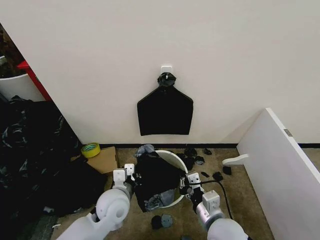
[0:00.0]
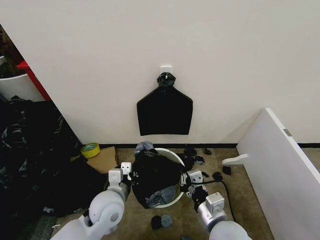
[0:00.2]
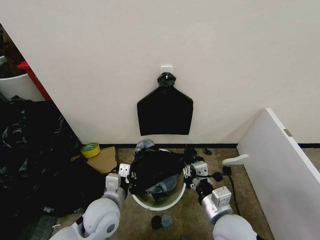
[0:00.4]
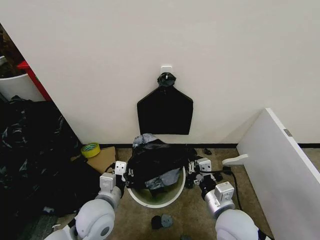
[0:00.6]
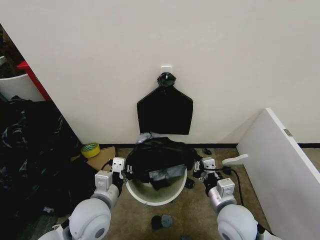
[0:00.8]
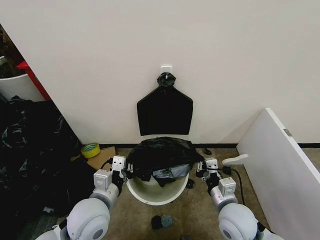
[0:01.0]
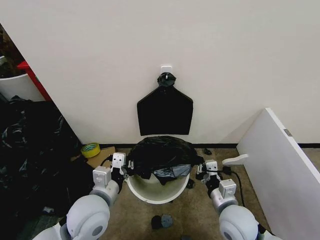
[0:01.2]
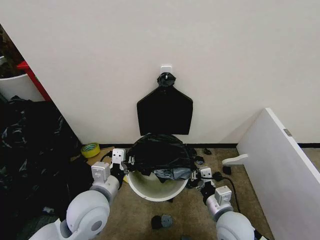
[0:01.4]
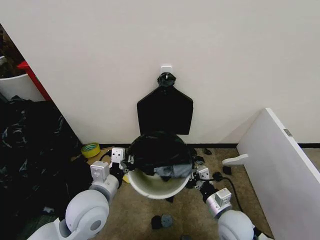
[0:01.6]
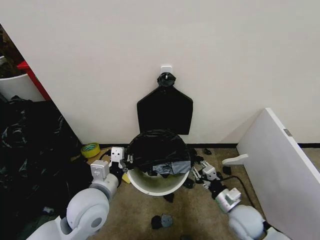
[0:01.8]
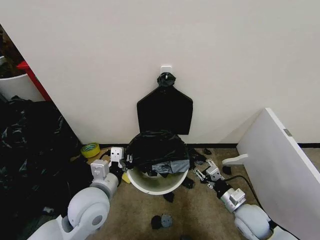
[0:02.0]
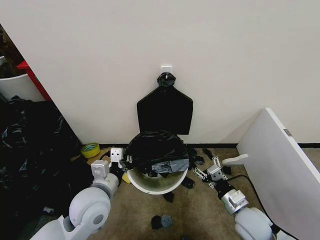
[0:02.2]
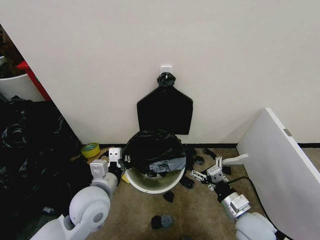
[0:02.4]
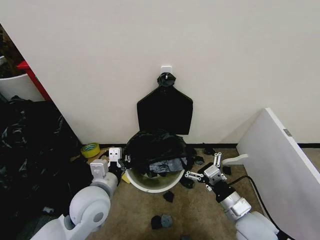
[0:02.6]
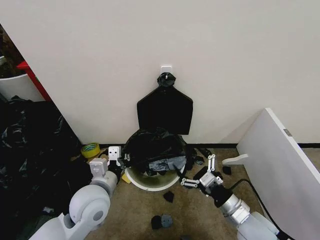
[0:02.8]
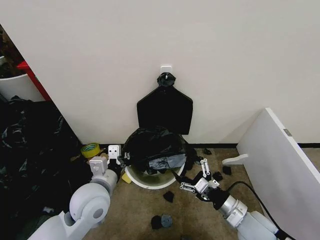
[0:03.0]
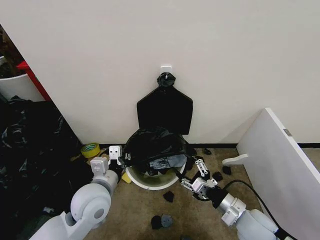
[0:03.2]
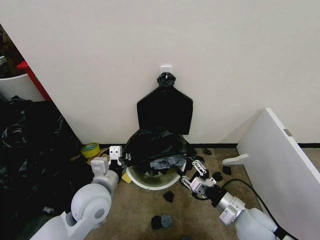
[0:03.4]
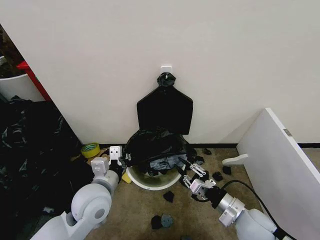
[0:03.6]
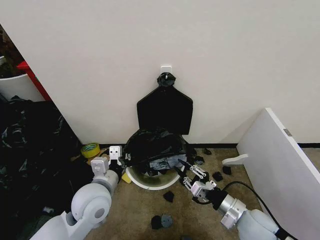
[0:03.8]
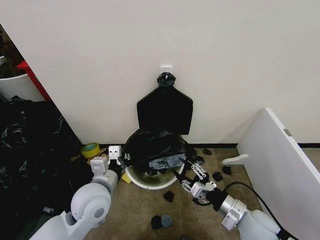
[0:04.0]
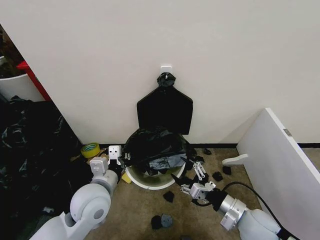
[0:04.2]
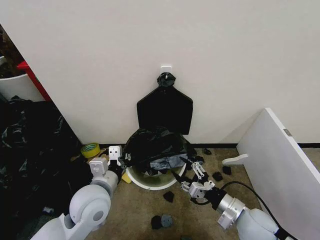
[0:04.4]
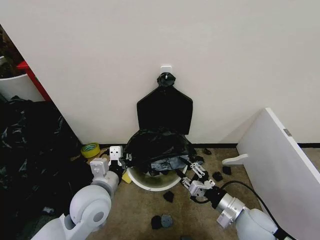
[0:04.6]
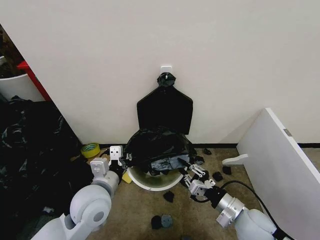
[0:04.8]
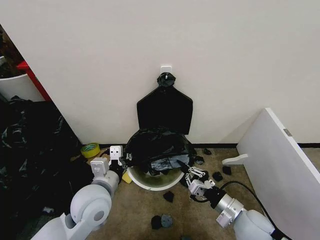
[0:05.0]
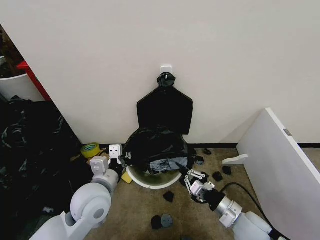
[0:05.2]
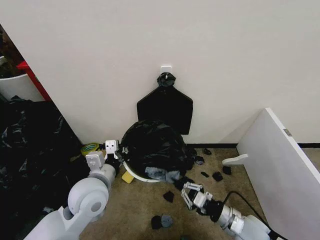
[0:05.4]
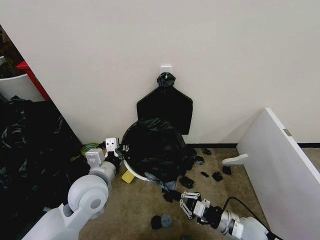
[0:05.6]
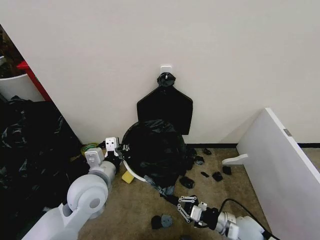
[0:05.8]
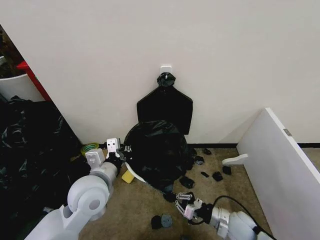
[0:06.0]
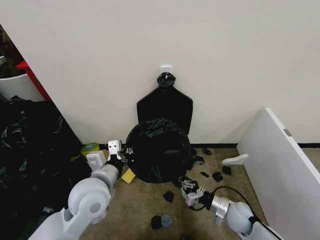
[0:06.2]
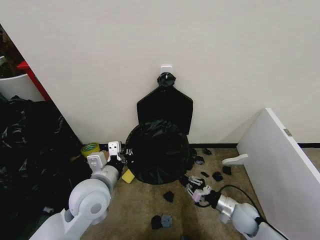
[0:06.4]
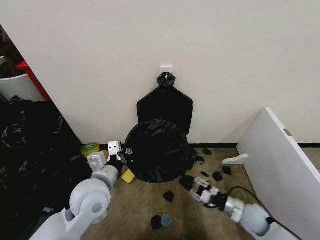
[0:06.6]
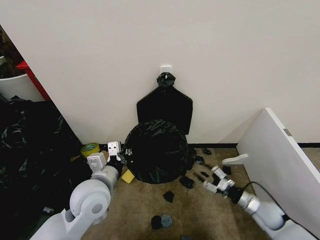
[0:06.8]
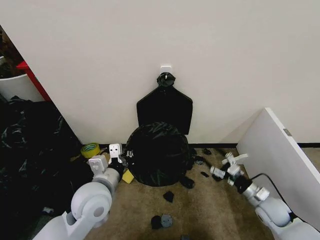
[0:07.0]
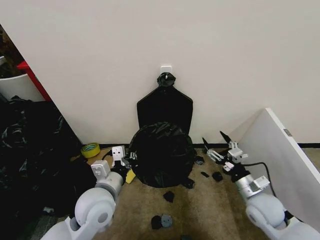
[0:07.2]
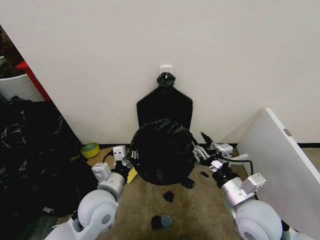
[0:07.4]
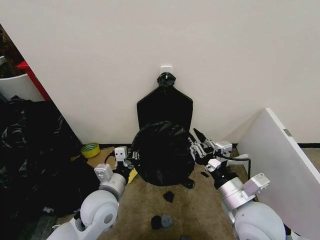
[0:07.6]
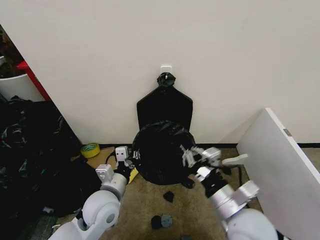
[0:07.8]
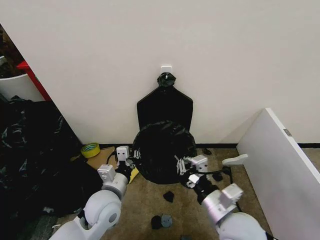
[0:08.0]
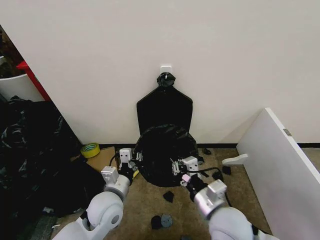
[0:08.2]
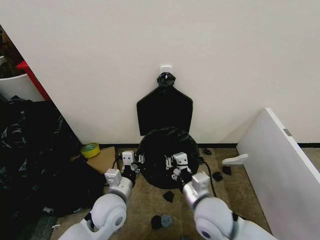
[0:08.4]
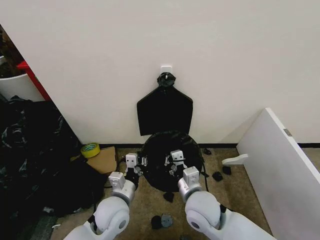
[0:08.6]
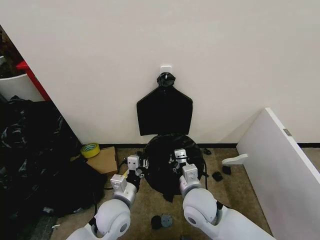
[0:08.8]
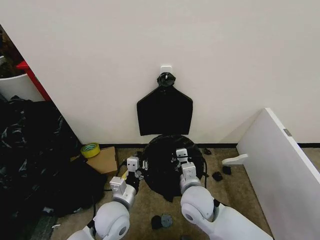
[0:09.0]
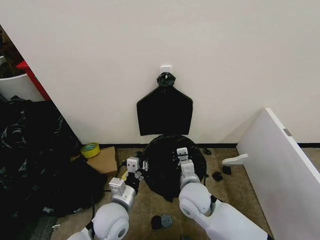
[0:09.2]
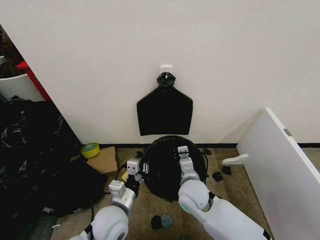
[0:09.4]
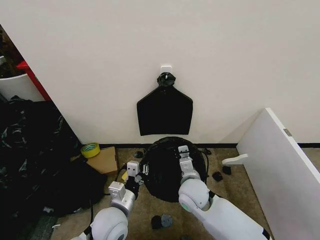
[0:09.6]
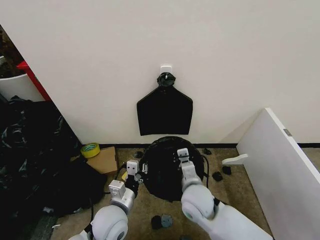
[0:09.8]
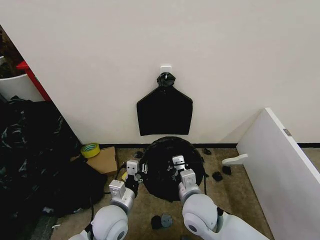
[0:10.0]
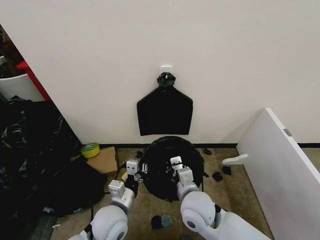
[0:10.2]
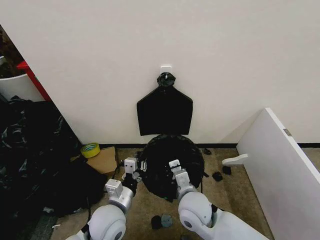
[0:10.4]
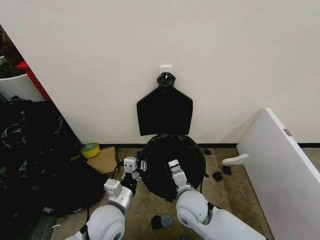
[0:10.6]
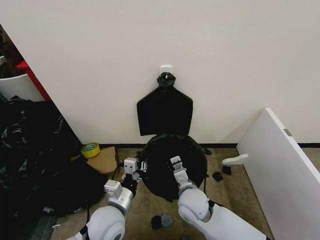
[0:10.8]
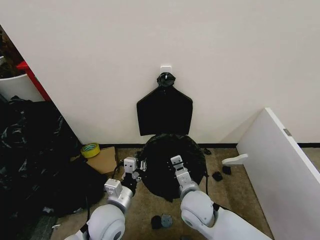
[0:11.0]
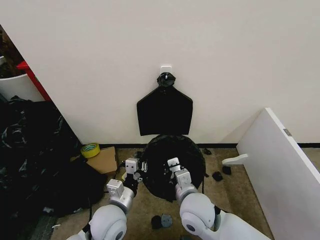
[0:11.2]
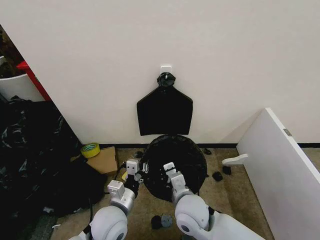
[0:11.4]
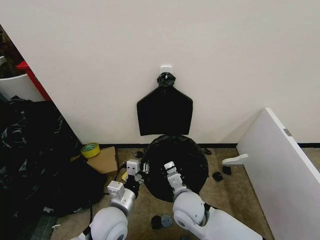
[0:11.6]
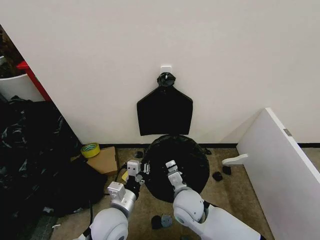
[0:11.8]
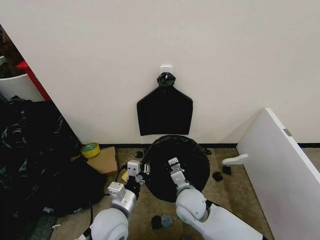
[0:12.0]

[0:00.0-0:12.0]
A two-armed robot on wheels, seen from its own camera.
Task of the whole recording: Place the garbage bag over the trash bin.
0:00.0 to 0:01.6: The right gripper changes place by about 10 cm. Meanwhile the left gripper shifts approximately 10 cm upward.
0:01.6 to 0:03.0: The right gripper goes roughly 5 cm to the right, and opens its fingers.
0:03.0 to 0:04.4: The grippers make only small movements.
0:04.4 to 0:06.0: The right gripper moves downward, approximately 15 cm, and closes its fingers.
0:06.0 to 0:07.6: The left gripper travels downward by some 5 cm, while the right gripper travels upward by approximately 20 cm, and opens and closes again.
0:07.6 to 0:09.0: The right gripper shifts about 15 cm to the left, downward and forward; the left gripper heads downward, covering roughly 5 cm.
0:09.0 to 0:12.0: There are only small adjustments of the grippers.

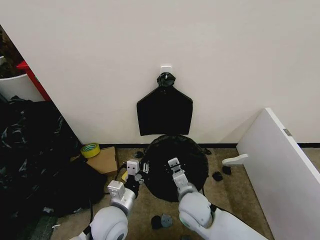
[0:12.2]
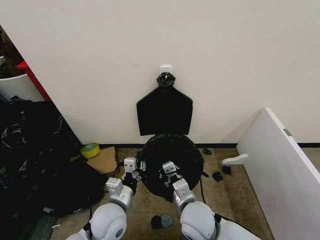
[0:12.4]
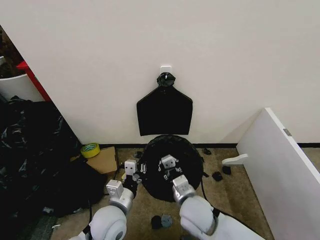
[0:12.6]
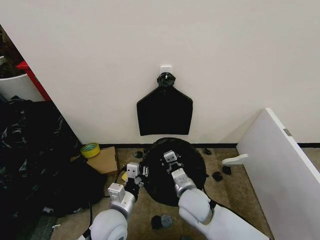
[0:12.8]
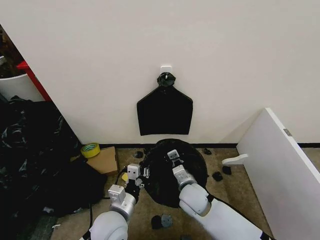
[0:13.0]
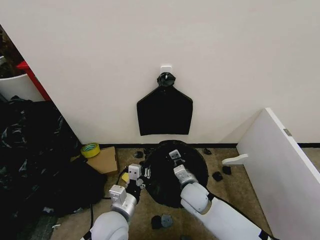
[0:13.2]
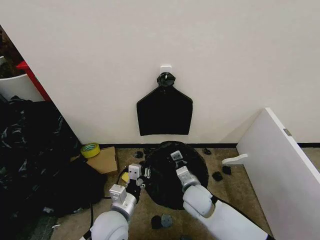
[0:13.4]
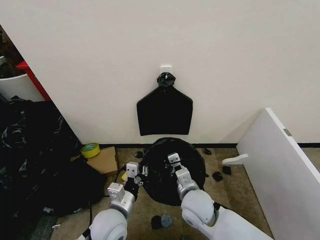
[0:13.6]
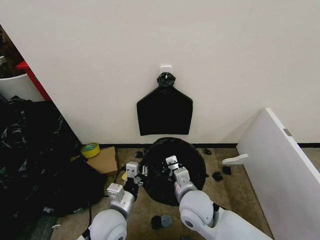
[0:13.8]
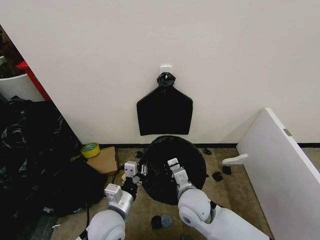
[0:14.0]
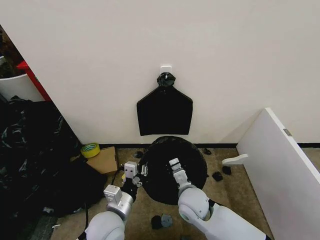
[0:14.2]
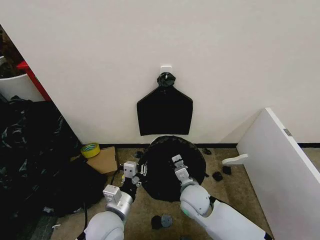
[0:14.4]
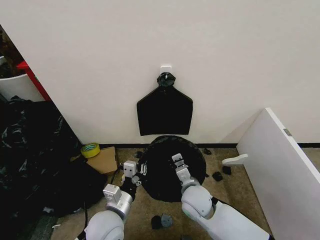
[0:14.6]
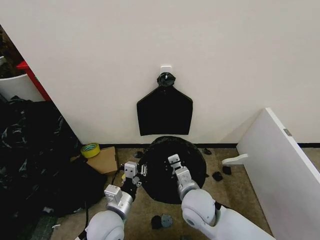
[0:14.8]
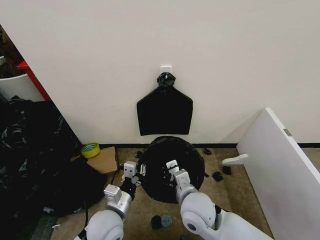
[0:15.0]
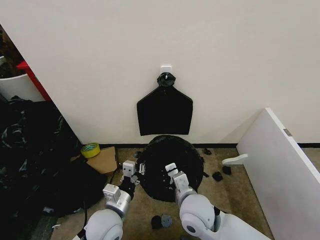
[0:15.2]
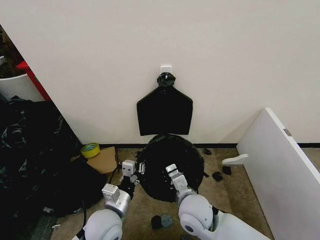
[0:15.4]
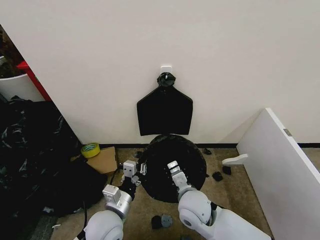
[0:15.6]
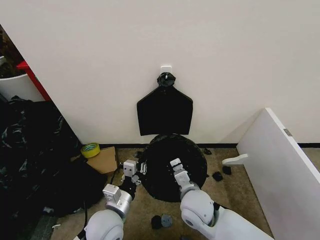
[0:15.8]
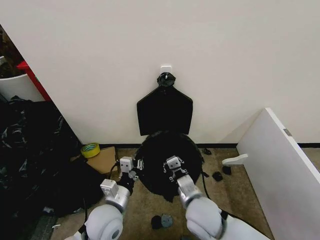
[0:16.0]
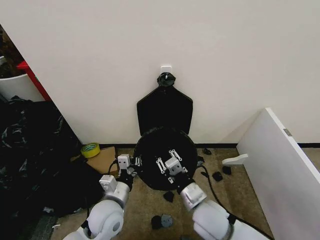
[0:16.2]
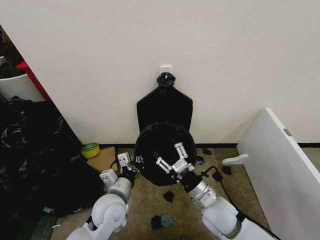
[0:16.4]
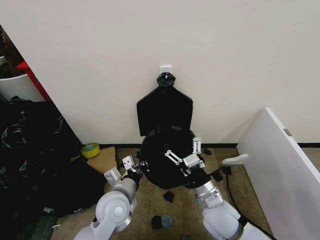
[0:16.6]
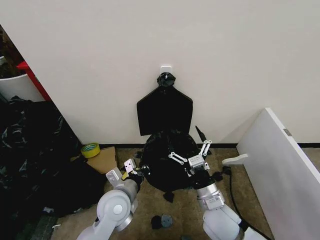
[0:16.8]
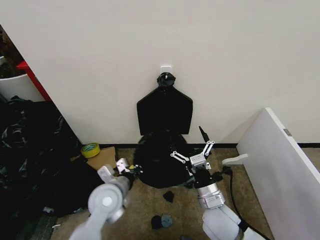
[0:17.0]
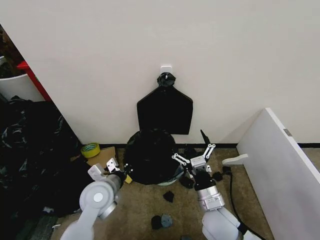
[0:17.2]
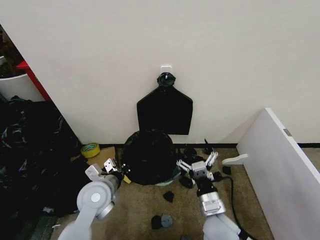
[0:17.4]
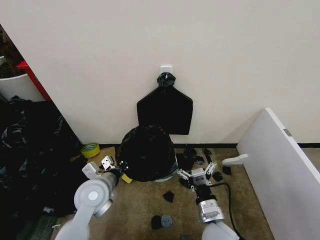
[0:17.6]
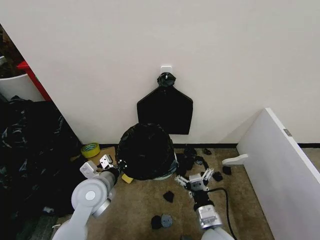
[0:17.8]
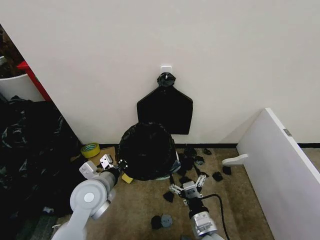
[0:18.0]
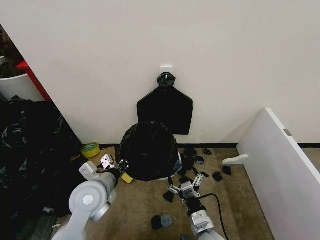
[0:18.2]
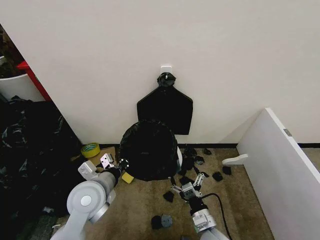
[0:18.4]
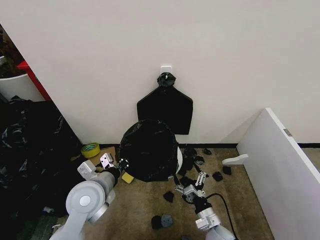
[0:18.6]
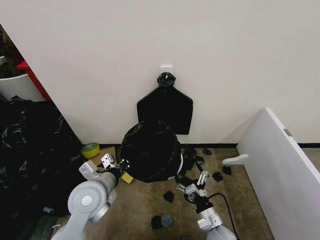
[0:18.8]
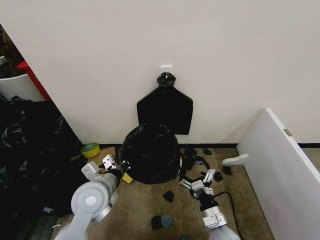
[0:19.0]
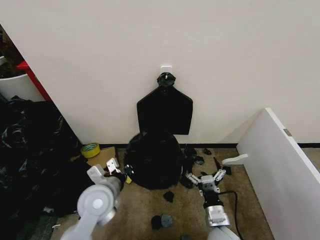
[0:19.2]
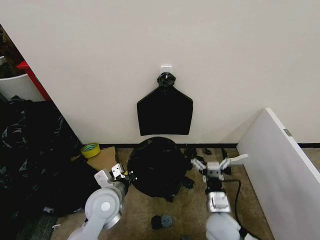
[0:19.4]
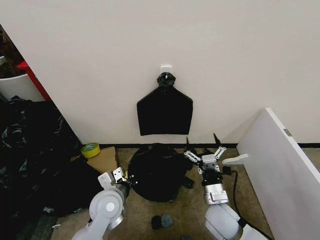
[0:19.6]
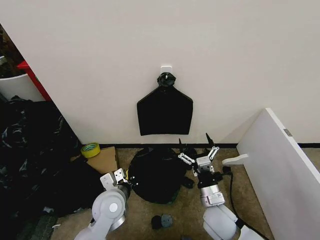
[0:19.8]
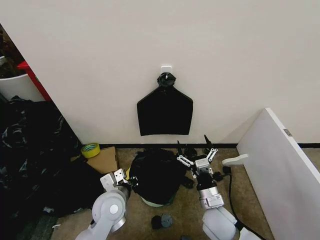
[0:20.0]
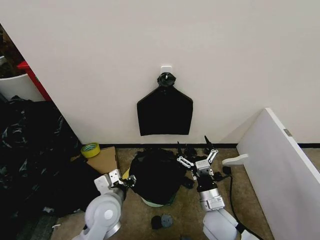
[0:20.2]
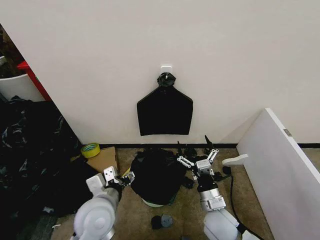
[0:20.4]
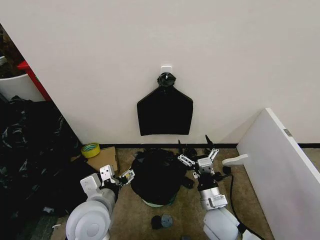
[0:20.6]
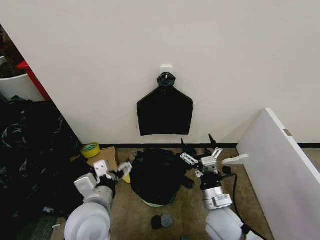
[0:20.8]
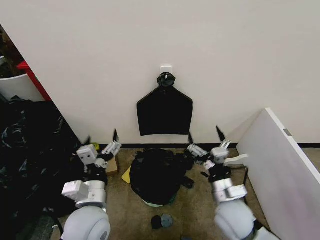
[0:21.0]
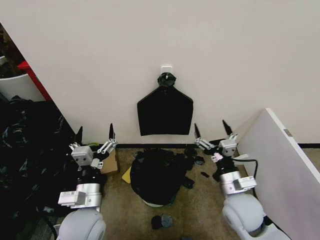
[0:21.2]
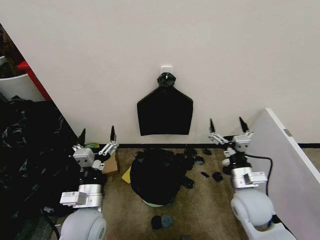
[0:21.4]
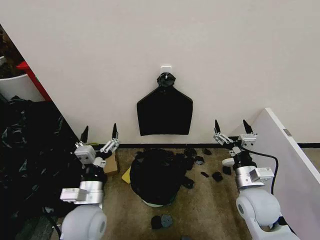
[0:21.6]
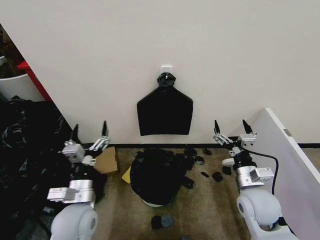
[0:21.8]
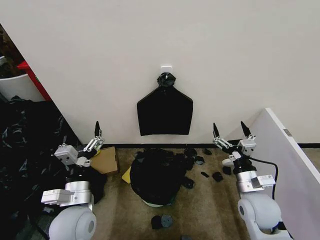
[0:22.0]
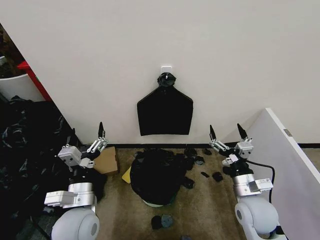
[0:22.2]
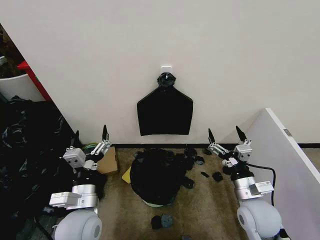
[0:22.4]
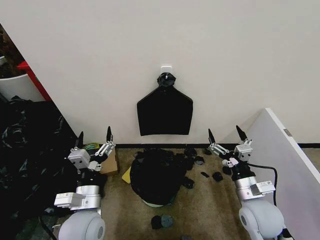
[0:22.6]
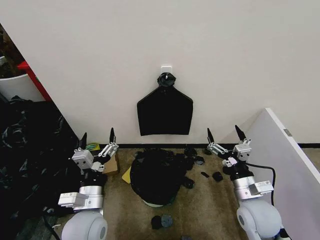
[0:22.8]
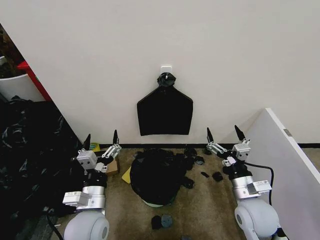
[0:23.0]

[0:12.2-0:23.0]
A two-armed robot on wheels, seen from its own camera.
Task of the whole recording: Place the garbage bag over the trash bin.
0:12.2 to 0:13.8: The right gripper travels forward and back again, about 5 cm each way.
0:15.2 to 0:16.8: The left gripper ends up some 5 cm from where it was; the right gripper moves to the right, approximately 5 cm, and opens.
0:16.8 to 0:18.4: The left gripper travels to the left and upward by some 10 cm, while the right gripper is displaced downward by about 10 cm.
0:18.4 to 0:20.0: The right gripper heads upward, covering approximately 5 cm, while the left gripper goes approximately 5 cm downward.
0:20.0 to 0:21.4: The left gripper is displaced backward by some 5 cm, and opens up. The right gripper is displaced to the right and upward by approximately 10 cm.
0:21.4 to 0:23.0: The grippers make only small movements.
